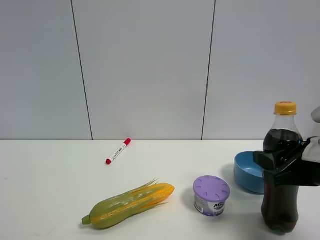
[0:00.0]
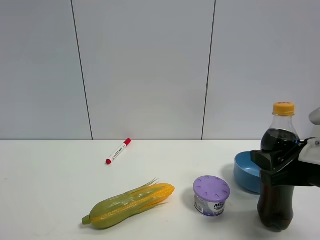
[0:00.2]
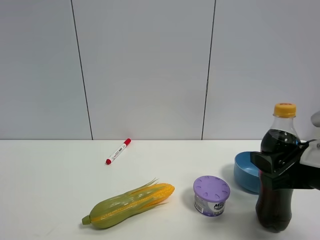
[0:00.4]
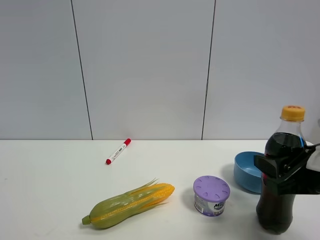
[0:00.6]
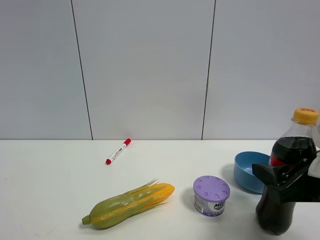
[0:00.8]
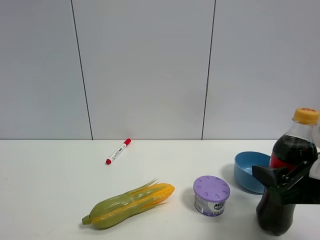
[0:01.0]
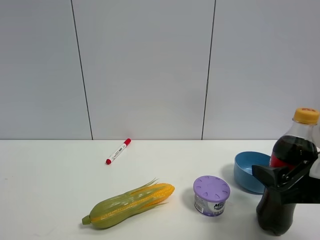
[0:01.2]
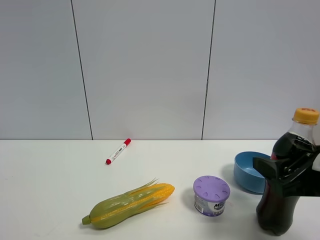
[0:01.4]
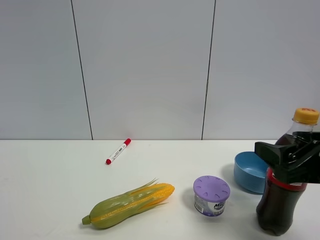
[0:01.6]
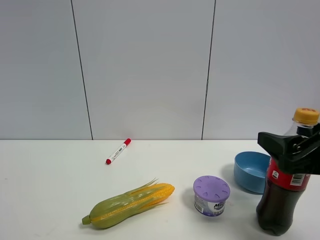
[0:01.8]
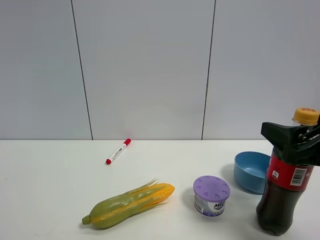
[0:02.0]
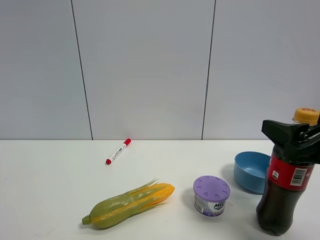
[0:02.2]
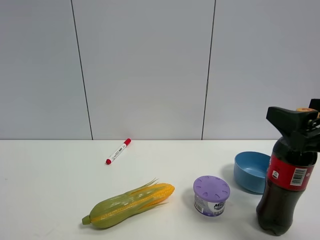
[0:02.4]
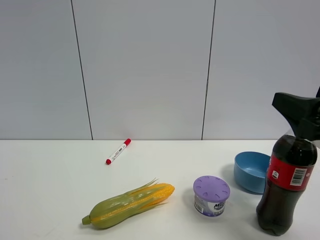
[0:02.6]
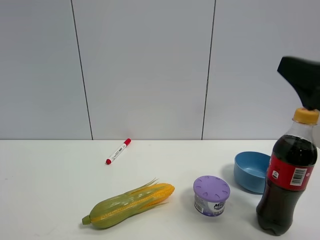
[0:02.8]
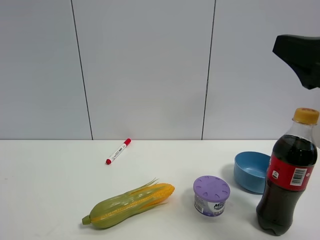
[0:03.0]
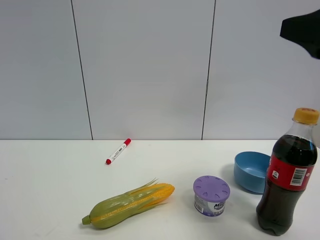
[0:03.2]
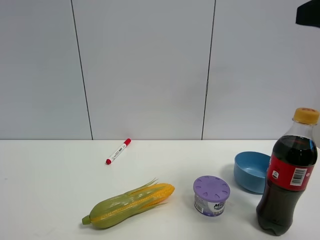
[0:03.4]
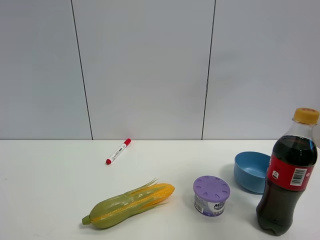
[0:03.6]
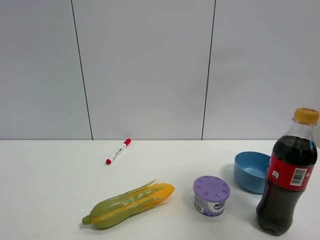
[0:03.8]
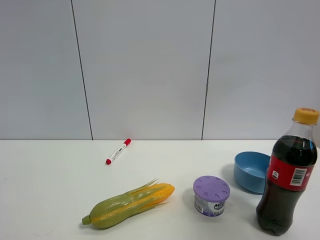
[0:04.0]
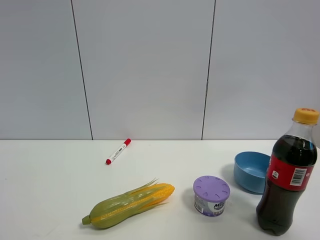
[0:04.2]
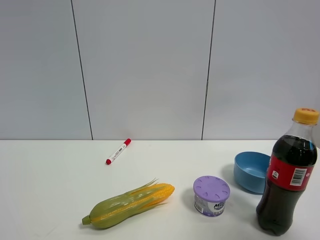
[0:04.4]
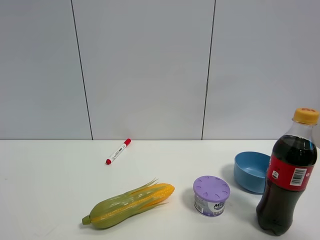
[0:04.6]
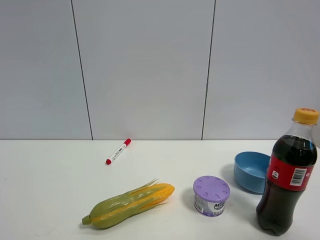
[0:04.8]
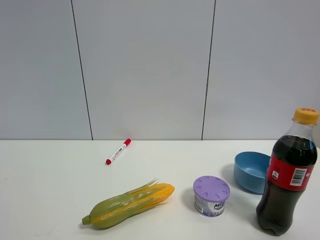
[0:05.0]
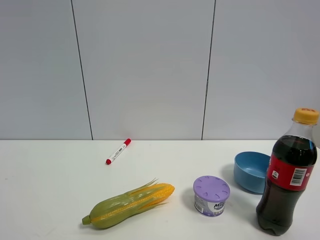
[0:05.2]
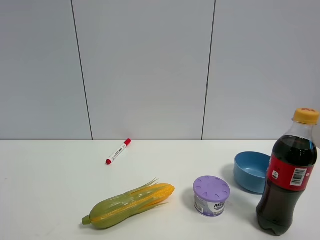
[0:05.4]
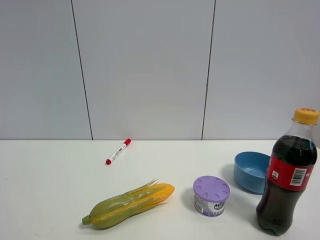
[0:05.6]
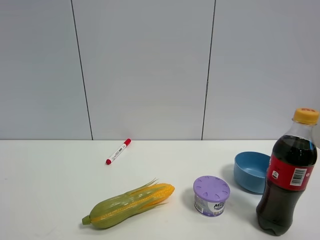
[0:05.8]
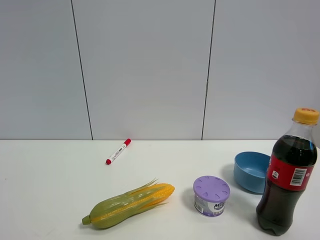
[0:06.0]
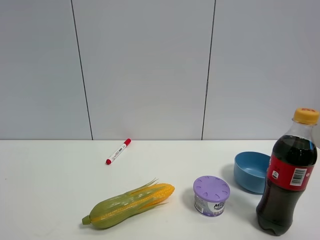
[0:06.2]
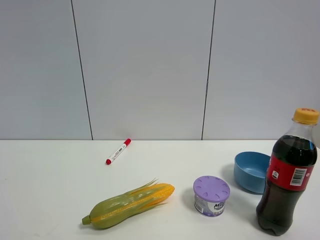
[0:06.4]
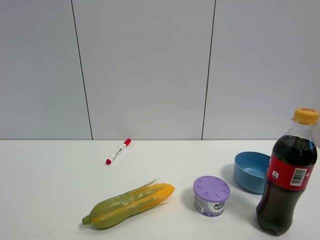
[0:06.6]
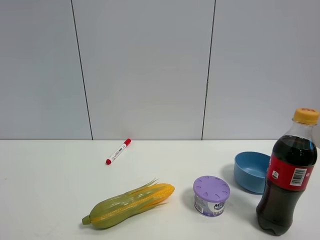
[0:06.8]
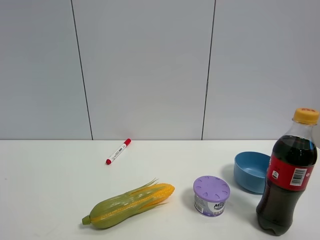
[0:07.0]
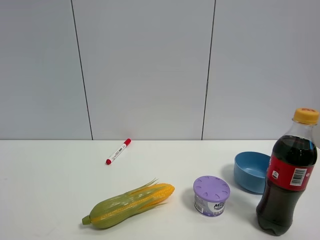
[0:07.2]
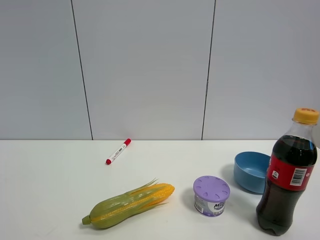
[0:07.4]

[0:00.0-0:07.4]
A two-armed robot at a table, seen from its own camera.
Task of the whole recording: the gripper move the object.
0:00.0 to 0:01.4: The right gripper opens up.
0:01.4 to 0:03.0: The right gripper shifts roughly 15 cm upward.
0:03.0 to 0:04.4: The right gripper travels backward, upward and to the right by approximately 20 cm.
0:04.4 to 0:06.0: The right gripper is displaced downward by approximately 15 cm.
0:06.0 to 0:07.4: The two grippers keep their place.

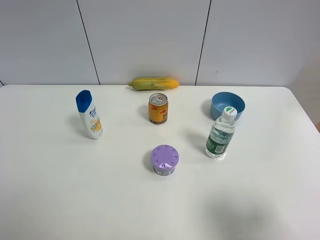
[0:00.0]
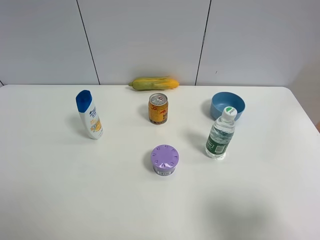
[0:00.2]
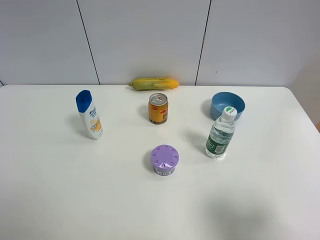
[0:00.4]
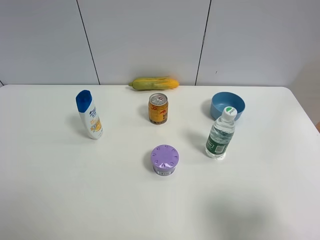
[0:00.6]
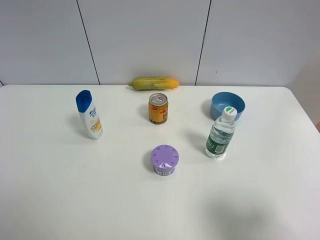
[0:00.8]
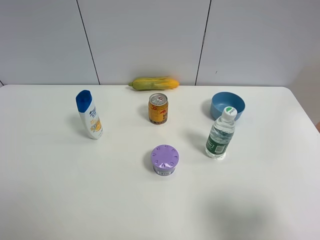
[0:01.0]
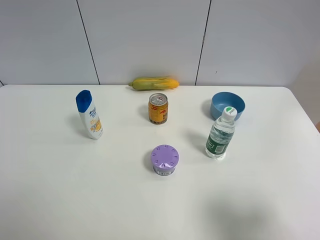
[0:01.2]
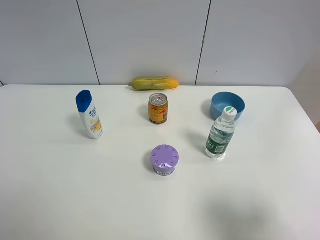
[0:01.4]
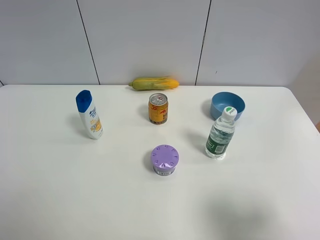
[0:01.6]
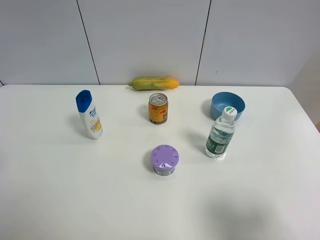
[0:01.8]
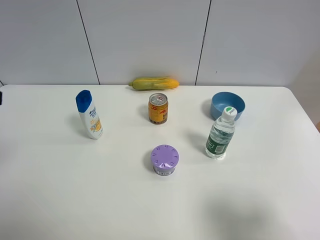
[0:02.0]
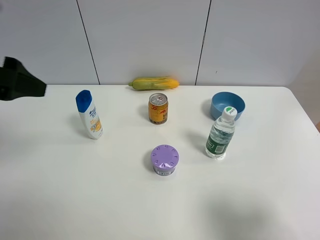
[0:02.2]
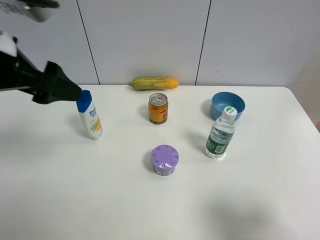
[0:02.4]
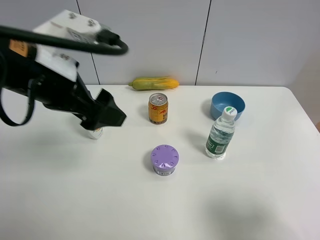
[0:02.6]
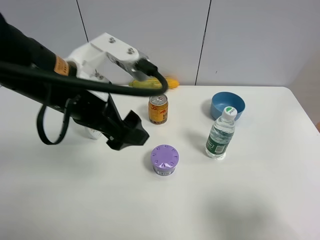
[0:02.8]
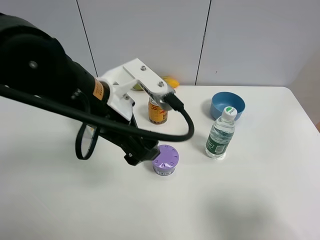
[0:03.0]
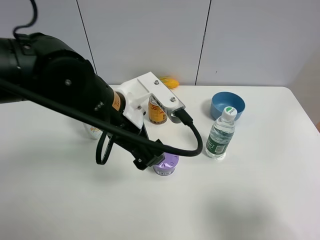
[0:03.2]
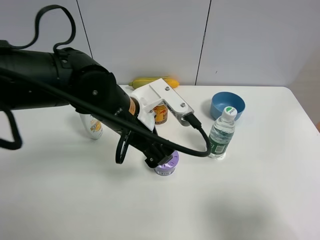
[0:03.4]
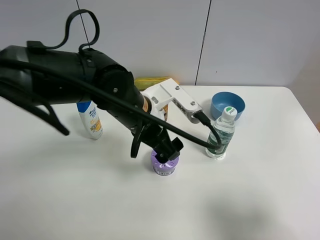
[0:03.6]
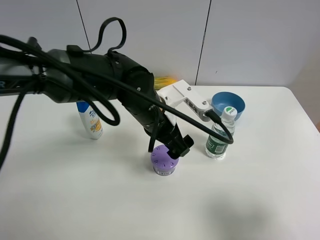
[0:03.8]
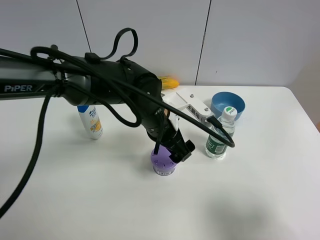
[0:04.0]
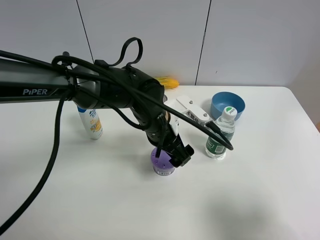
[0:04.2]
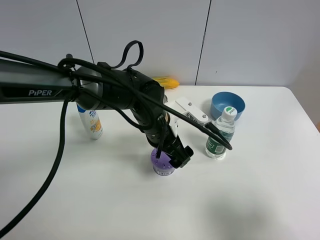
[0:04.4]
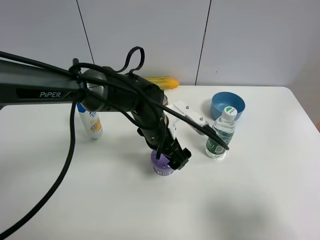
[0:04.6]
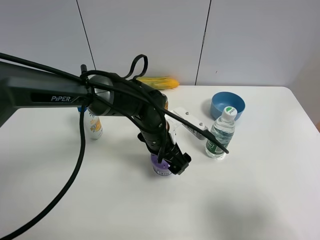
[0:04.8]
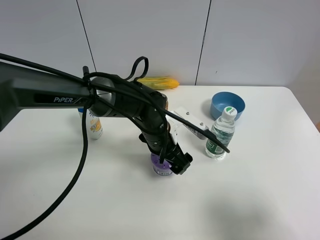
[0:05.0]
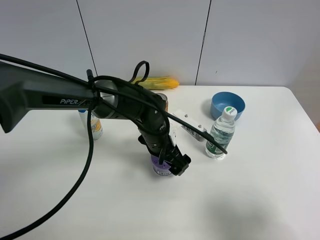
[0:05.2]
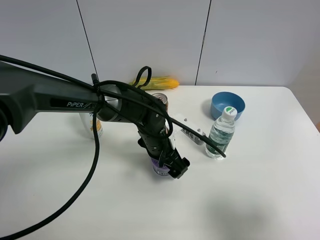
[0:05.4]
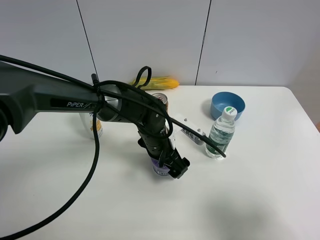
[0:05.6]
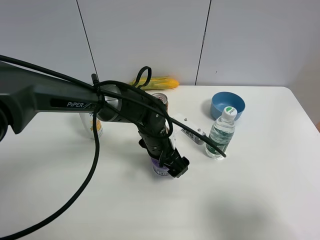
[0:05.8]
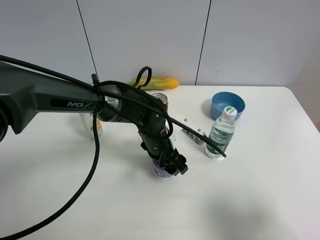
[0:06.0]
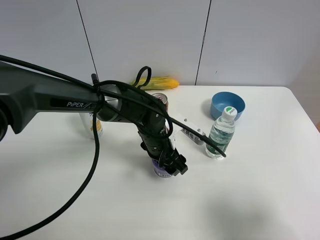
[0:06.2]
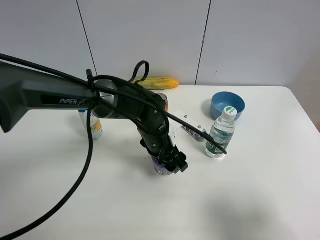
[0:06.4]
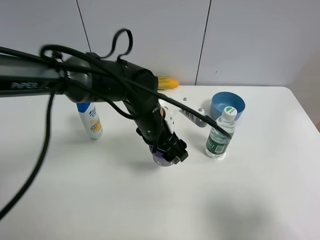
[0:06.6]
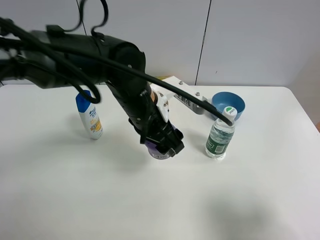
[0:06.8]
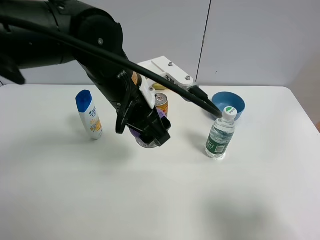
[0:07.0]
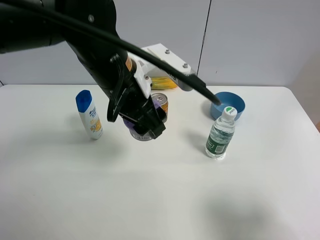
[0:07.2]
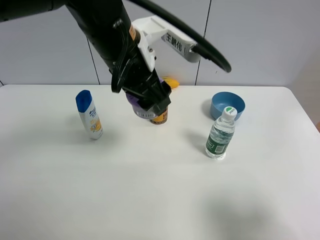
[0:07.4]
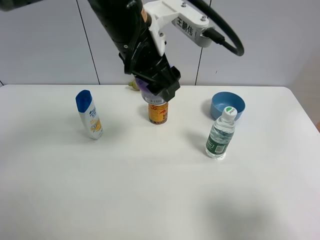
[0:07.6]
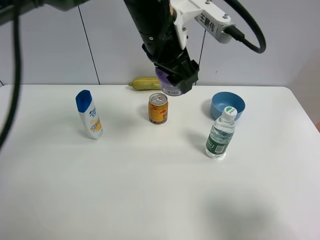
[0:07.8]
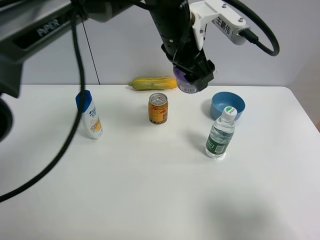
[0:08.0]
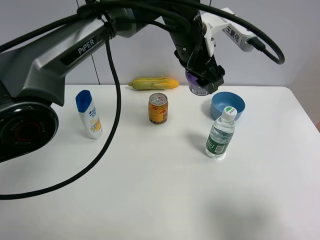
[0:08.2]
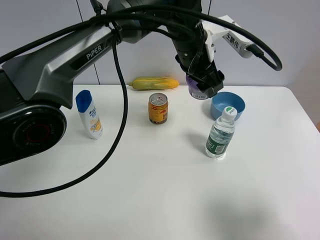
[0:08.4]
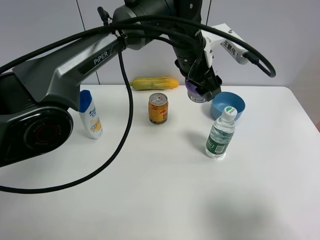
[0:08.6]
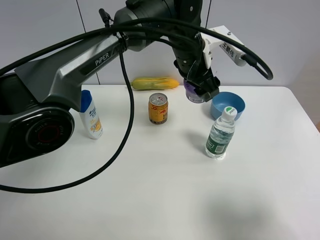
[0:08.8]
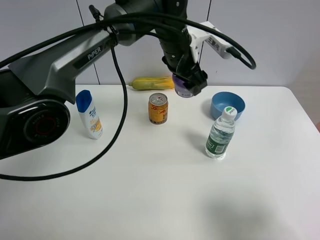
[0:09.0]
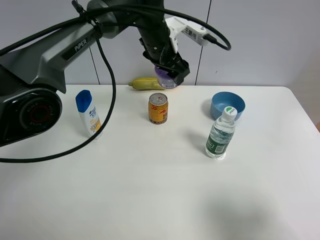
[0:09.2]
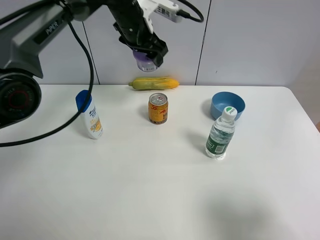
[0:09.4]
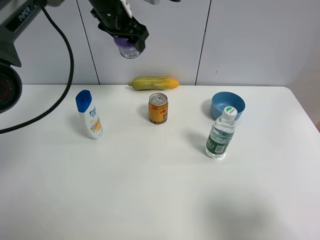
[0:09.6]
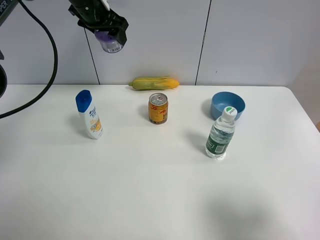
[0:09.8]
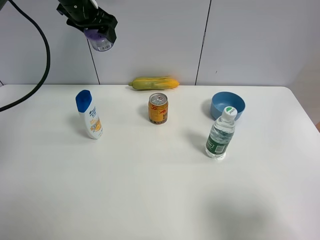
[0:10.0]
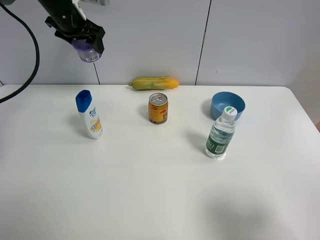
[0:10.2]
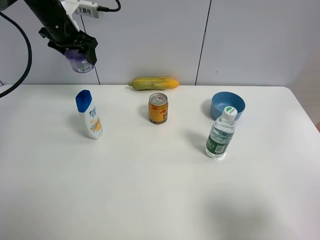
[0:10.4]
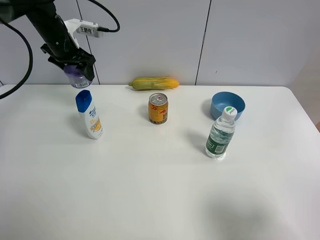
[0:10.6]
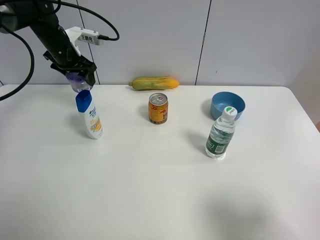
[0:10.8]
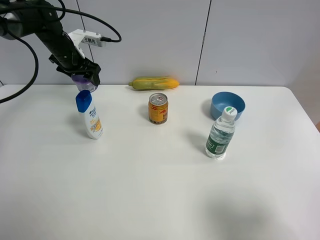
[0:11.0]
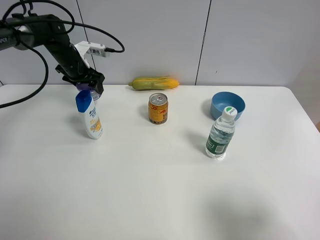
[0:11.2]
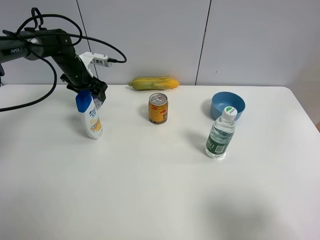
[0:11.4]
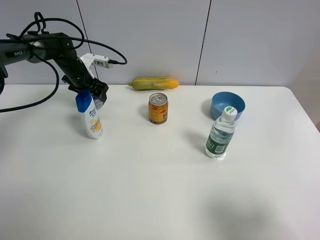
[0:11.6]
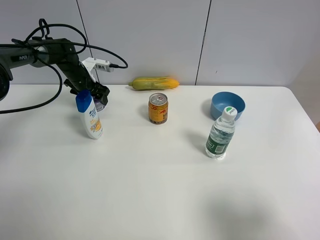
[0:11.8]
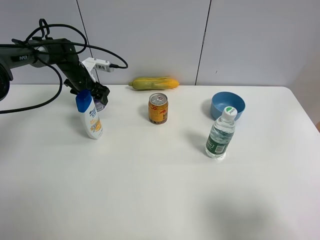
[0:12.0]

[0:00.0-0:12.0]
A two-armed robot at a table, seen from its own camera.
Task of the whole recording: the gripper move the object.
Step, 0:00.0 to 0:06.0: Grasp the Incense box with the left gripper.
0:01.6 to 0:03.0: The left gripper goes some 30 cm to the right and forward.
0:03.0 to 0:04.4: The left gripper shifts approximately 20 cm downward, to the right and forward.
0:04.4 to 0:06.0: The left gripper moves downward, approximately 5 cm, and closes.
0:06.0 to 0:07.6: The left gripper goes roughly 25 cm upward.
0:07.6 to 0:09.0: The left gripper shifts roughly 15 cm forward, to the right and downward.
0:09.0 to 0:10.4: The left gripper goes roughly 30 cm to the left.
0:10.4 to 0:12.0: The left gripper is displaced downward by approximately 20 cm.

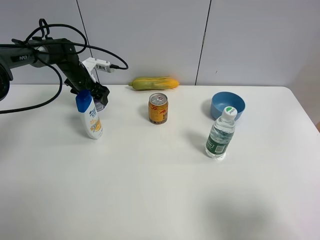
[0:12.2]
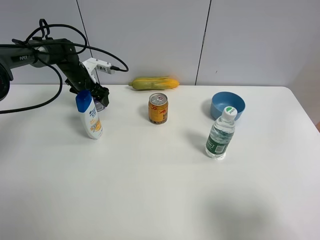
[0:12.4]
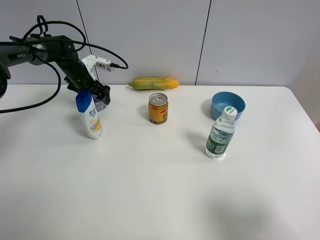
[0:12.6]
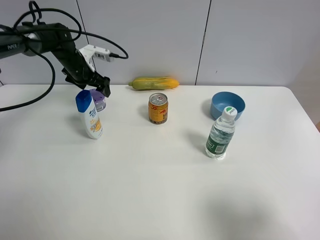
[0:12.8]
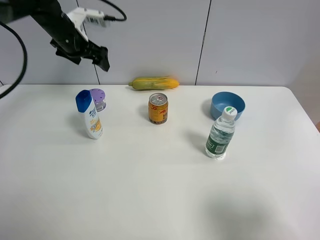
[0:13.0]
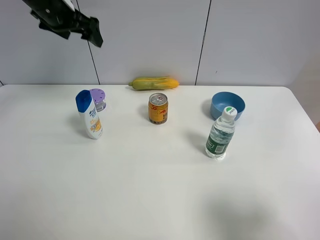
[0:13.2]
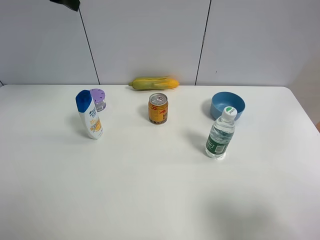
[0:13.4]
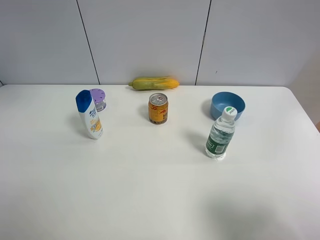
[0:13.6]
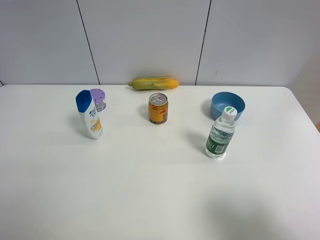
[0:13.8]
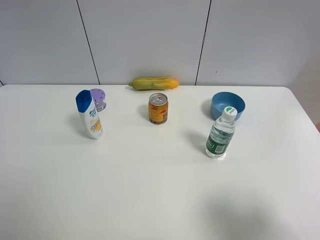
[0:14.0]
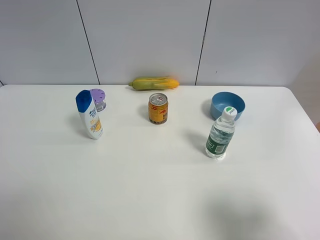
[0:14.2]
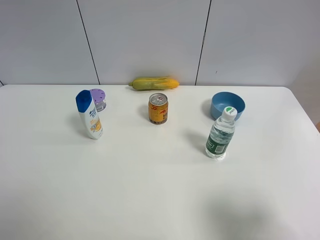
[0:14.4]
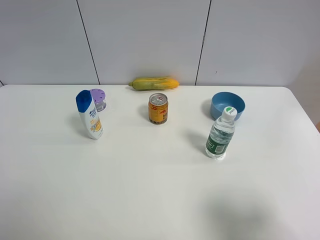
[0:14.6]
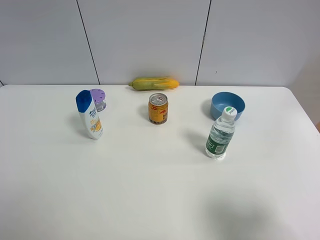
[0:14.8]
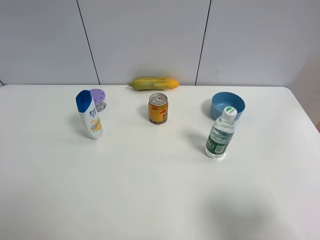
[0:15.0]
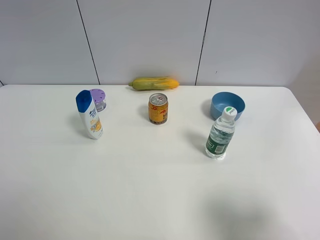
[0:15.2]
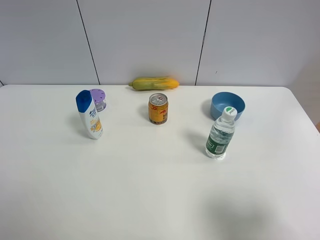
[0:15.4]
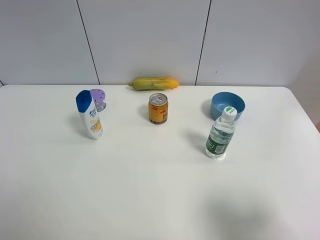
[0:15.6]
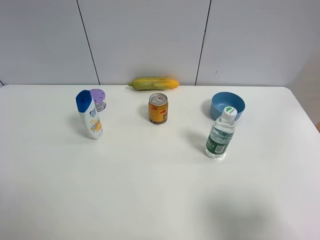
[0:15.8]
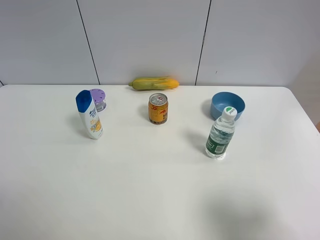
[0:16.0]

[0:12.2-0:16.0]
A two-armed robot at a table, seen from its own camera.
Task of the whole recording: the gripper move the object.
0:12.2 to 0:13.4: The left gripper moves upward, roughly 30 cm, and opens its fingers.
0:13.4 to 0:14.8: The left gripper is displaced backward by about 35 cm.
